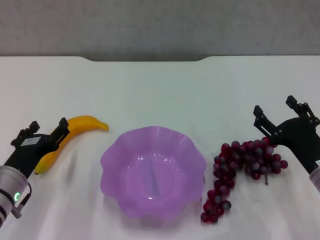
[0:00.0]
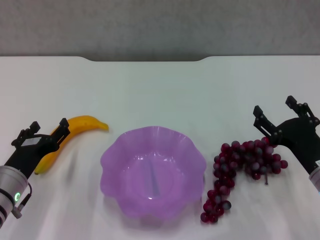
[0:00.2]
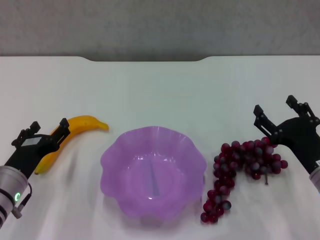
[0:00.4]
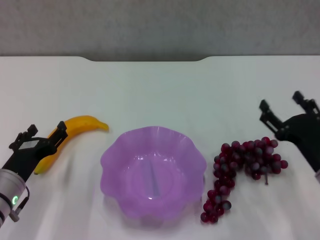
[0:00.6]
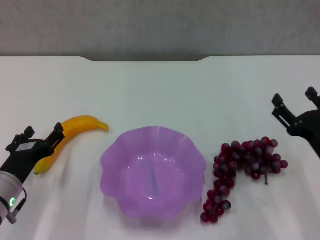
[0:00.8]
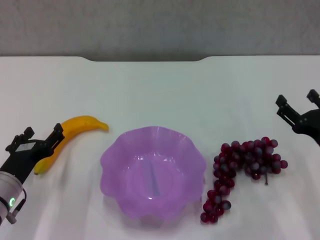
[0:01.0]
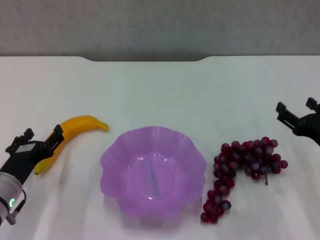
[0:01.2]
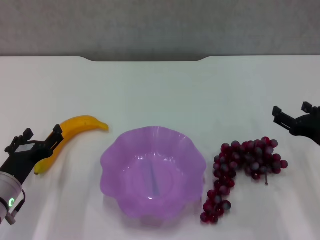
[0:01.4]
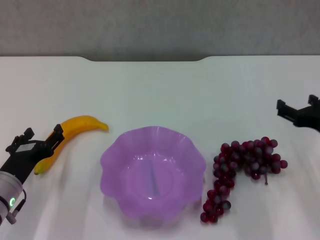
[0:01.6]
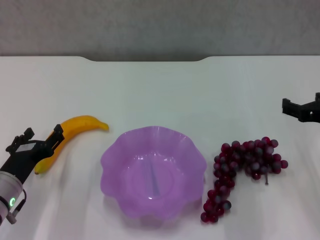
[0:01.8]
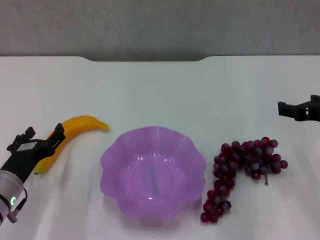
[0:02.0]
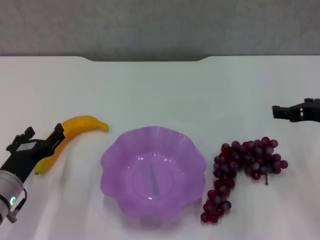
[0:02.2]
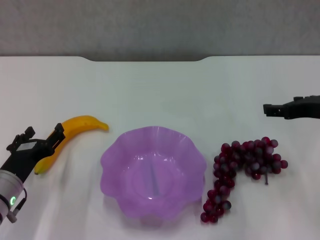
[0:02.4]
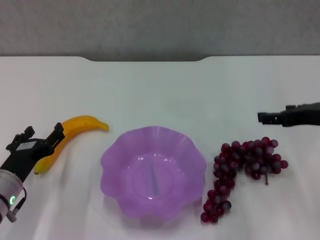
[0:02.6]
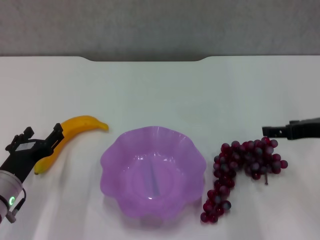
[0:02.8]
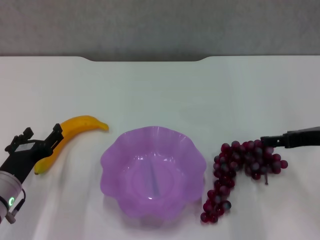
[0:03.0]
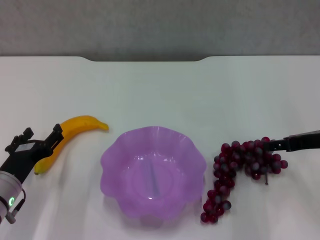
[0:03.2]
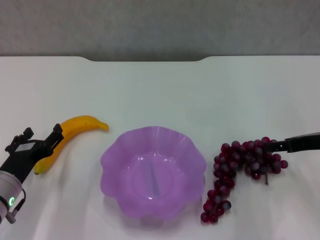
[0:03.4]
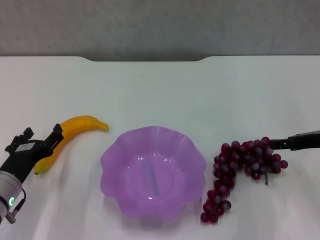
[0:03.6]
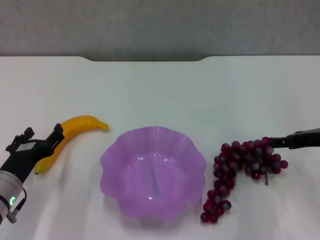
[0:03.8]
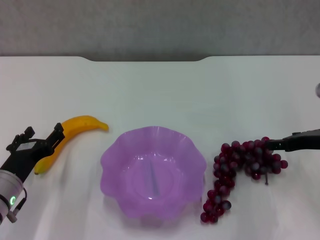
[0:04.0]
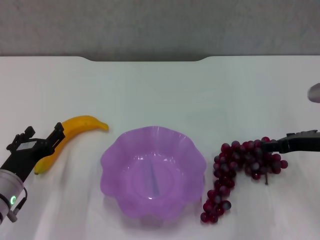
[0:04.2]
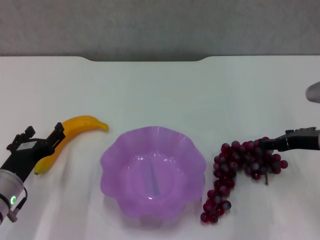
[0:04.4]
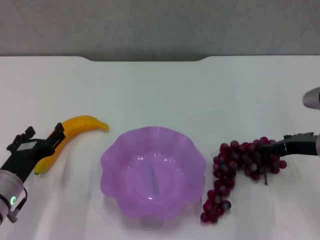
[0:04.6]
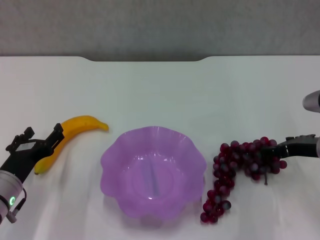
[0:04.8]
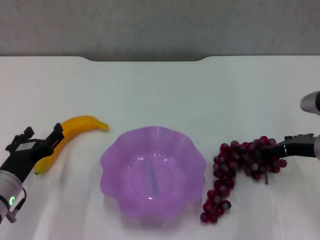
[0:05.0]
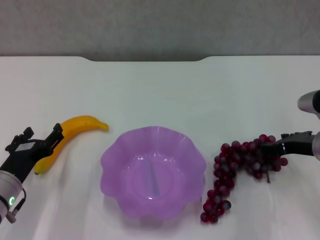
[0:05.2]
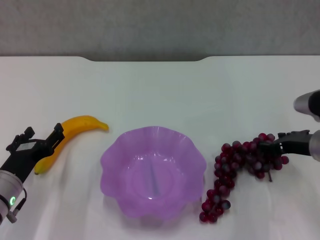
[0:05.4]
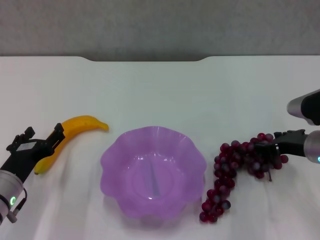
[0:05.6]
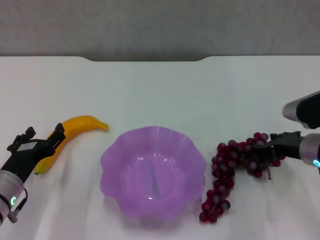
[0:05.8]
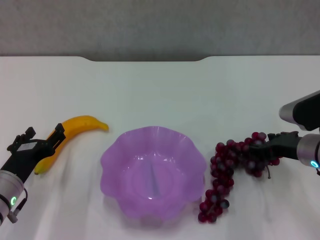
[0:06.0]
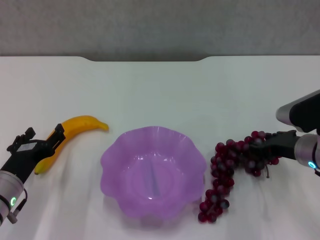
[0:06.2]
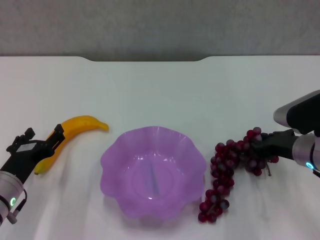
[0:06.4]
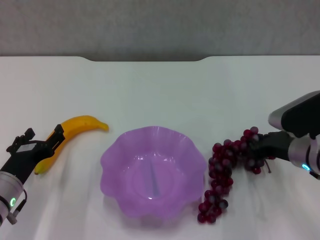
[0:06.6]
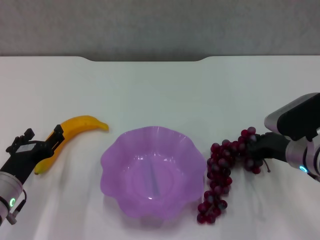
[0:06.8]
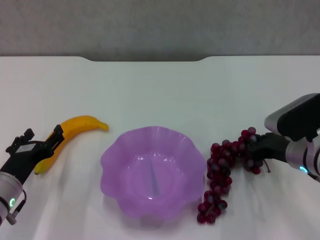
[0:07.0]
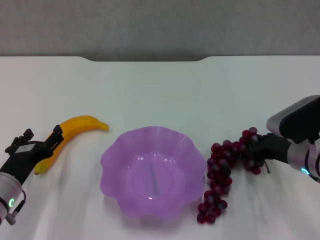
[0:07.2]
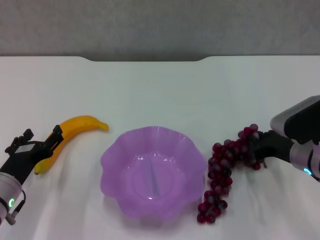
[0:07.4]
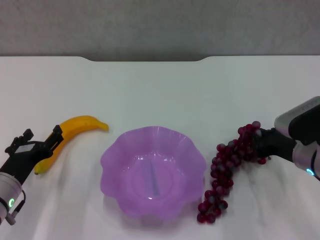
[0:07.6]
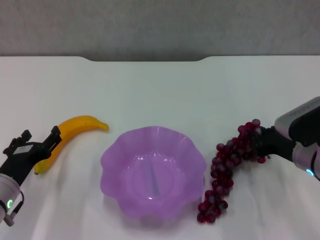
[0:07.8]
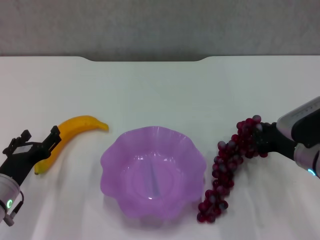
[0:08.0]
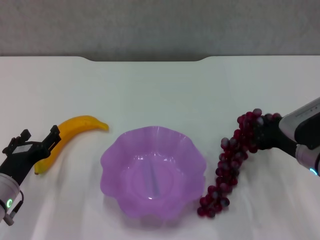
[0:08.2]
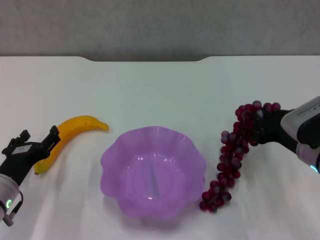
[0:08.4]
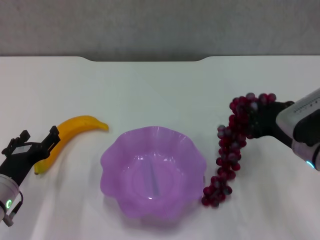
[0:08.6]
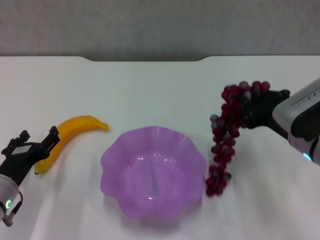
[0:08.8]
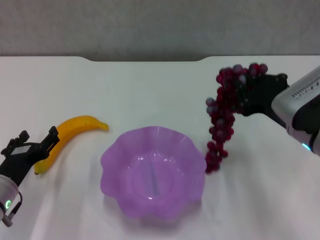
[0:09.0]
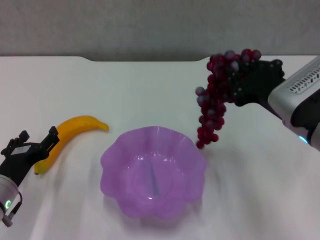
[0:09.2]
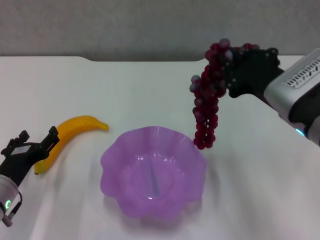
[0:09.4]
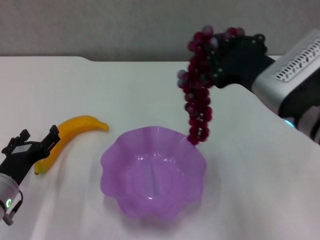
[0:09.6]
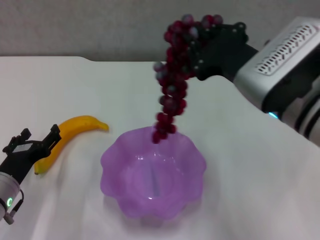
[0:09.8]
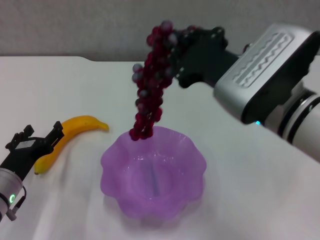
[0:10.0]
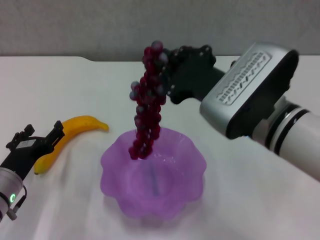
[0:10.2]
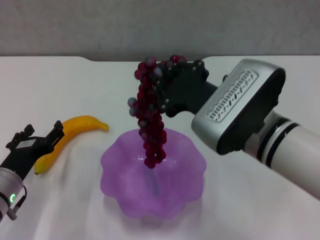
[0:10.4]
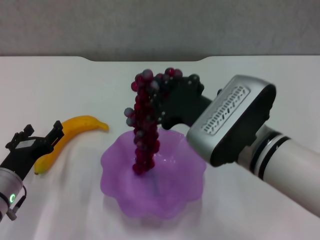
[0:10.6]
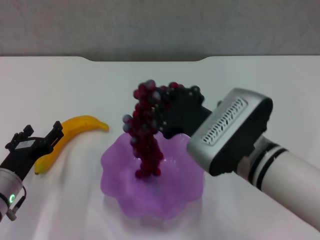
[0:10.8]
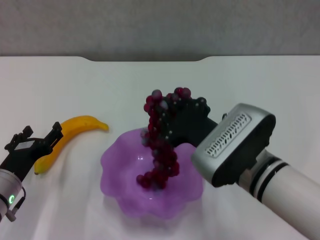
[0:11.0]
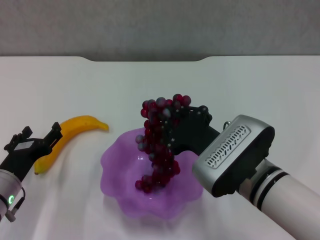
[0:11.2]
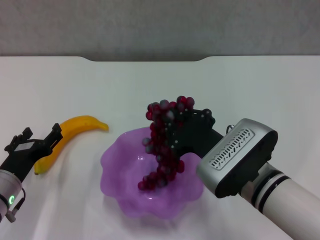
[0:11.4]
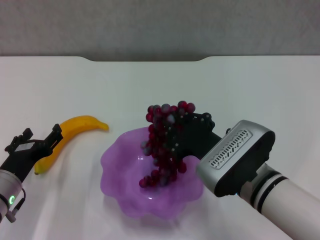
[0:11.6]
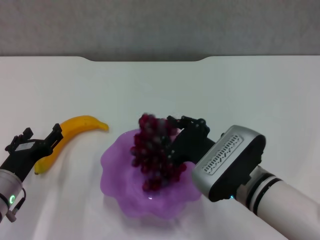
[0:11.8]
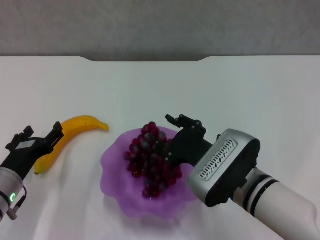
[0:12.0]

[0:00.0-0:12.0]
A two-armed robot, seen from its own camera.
Step, 0:00.0 to 0:07.0: Grasp the grape with right gripper.
0:00.0 to 0:01.6: The right gripper moves upward, approximately 5 cm.
0:03.0 to 0:04.4: The grippers move only a little.
0:04.4 to 0:06.0: There are only small adjustments of the grippers.
0:06.0 to 0:07.6: The right gripper closes up.
0:07.6 to 0:09.0: The right gripper is displaced upward by some 10 cm.
0:09.0 to 0:10.4: The right gripper moves to the left, approximately 10 cm.
0:10.4 to 0:12.0: The right gripper goes roughly 10 cm downward, and opens up.

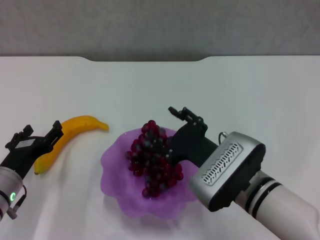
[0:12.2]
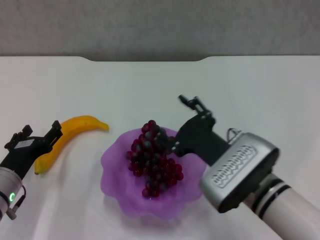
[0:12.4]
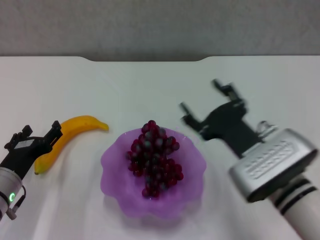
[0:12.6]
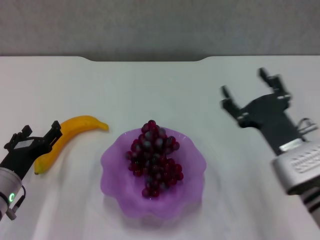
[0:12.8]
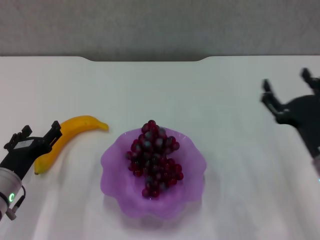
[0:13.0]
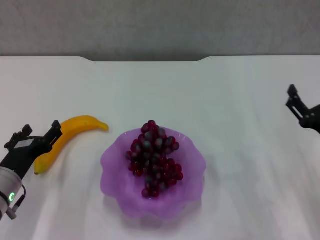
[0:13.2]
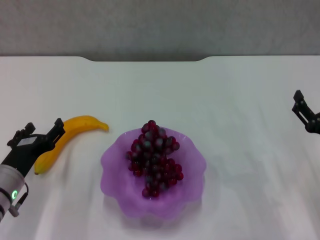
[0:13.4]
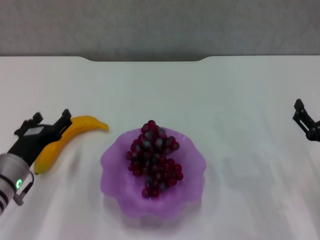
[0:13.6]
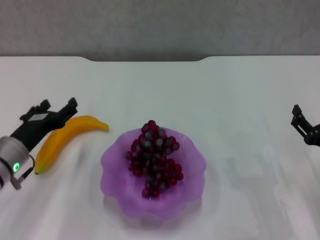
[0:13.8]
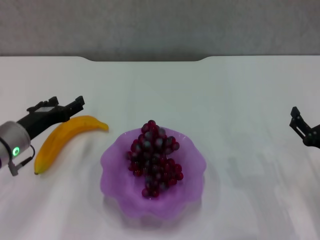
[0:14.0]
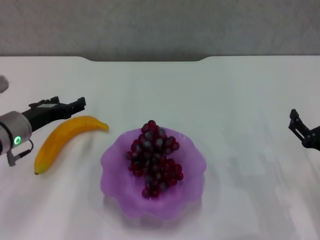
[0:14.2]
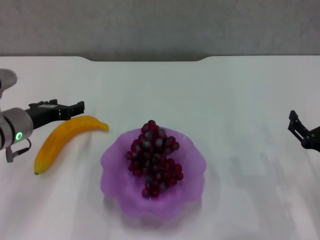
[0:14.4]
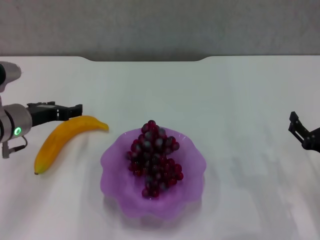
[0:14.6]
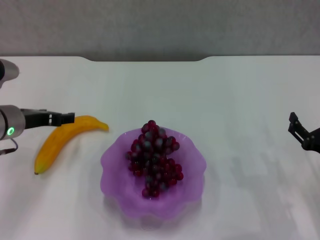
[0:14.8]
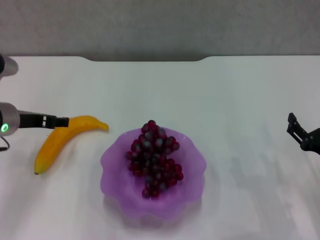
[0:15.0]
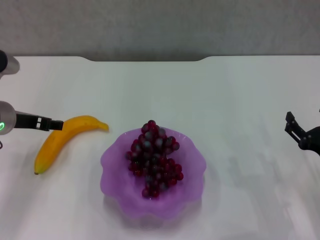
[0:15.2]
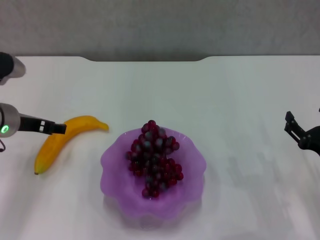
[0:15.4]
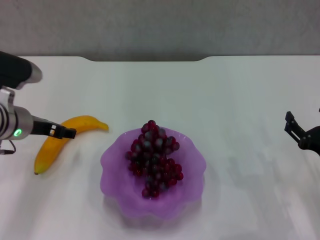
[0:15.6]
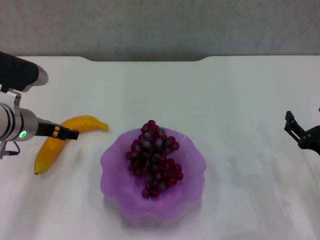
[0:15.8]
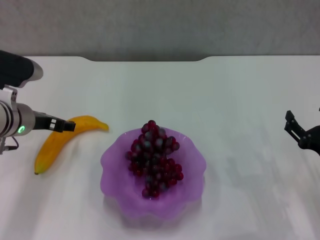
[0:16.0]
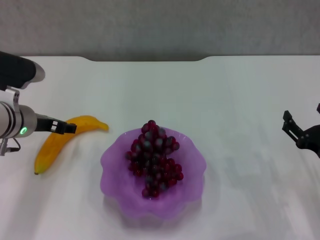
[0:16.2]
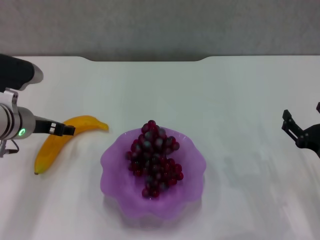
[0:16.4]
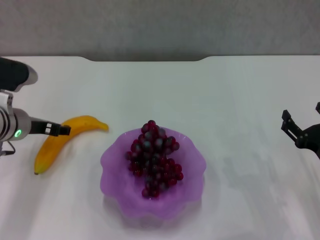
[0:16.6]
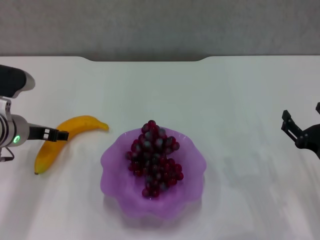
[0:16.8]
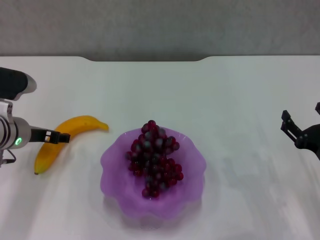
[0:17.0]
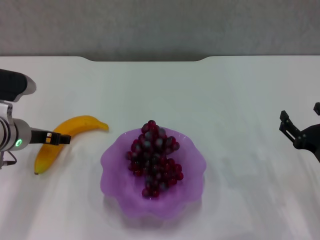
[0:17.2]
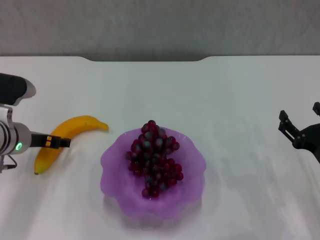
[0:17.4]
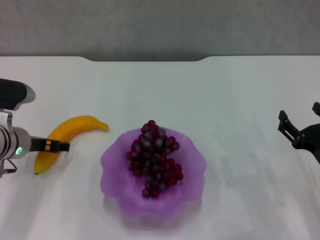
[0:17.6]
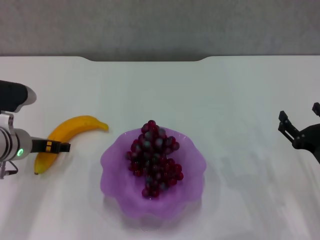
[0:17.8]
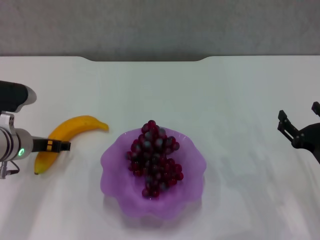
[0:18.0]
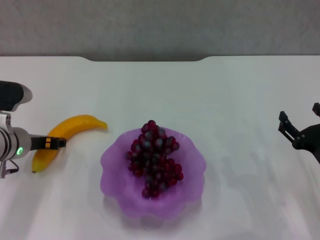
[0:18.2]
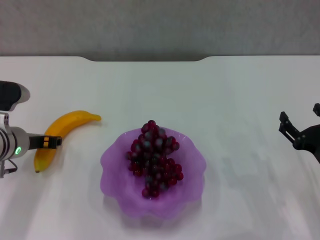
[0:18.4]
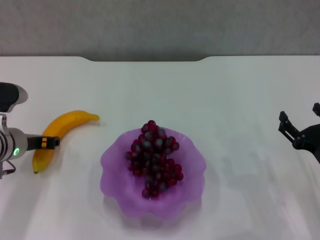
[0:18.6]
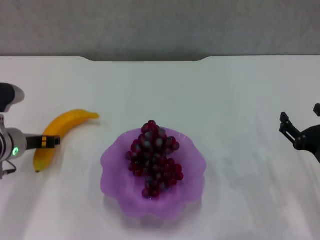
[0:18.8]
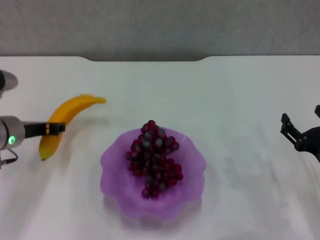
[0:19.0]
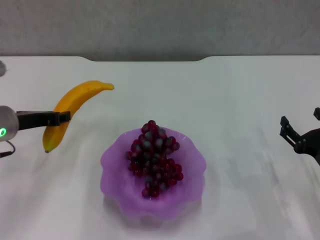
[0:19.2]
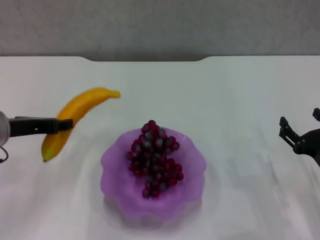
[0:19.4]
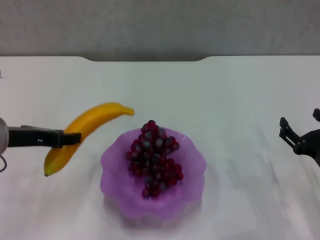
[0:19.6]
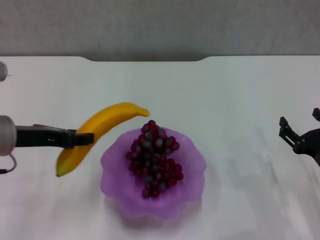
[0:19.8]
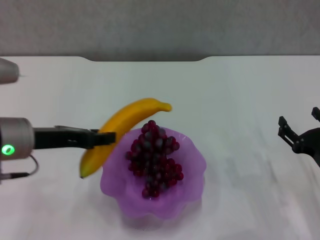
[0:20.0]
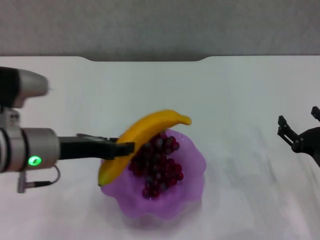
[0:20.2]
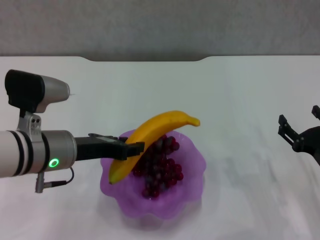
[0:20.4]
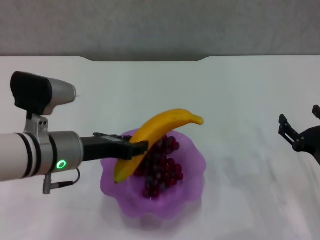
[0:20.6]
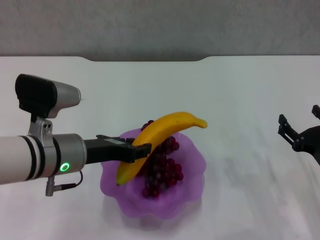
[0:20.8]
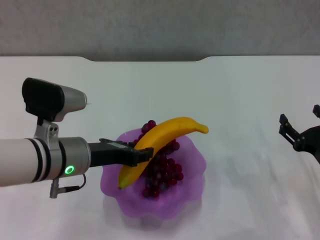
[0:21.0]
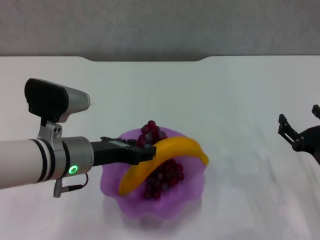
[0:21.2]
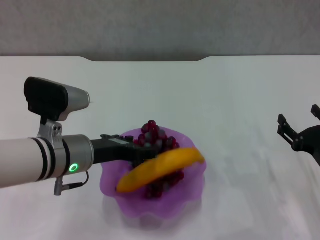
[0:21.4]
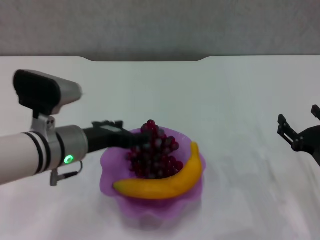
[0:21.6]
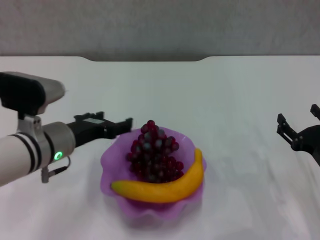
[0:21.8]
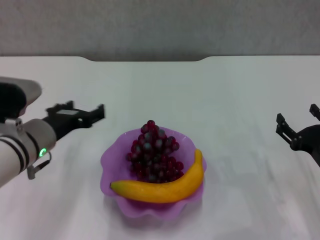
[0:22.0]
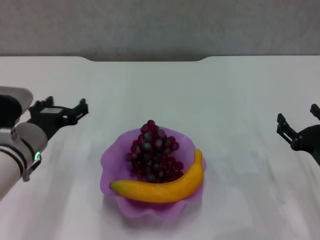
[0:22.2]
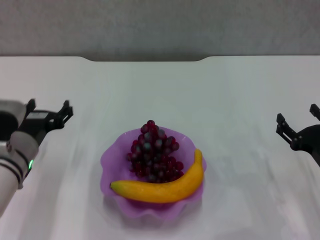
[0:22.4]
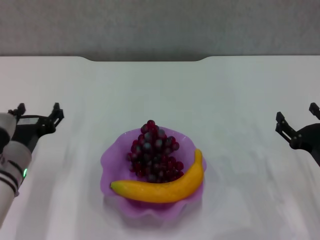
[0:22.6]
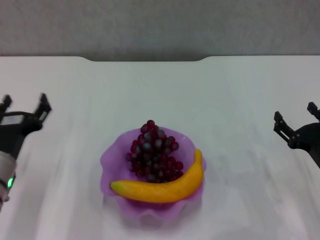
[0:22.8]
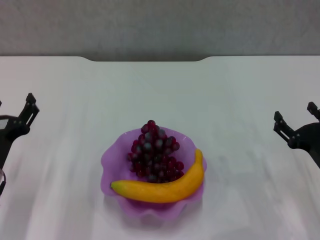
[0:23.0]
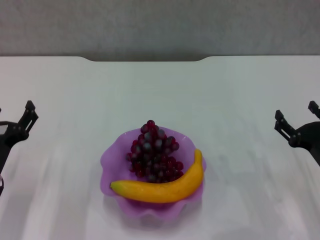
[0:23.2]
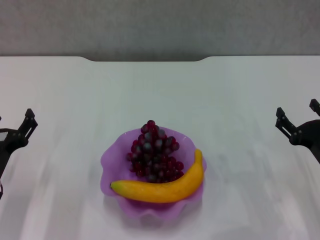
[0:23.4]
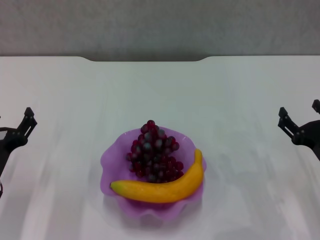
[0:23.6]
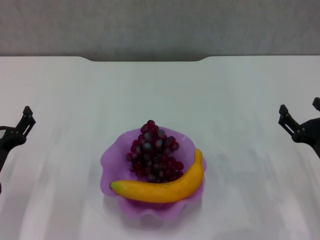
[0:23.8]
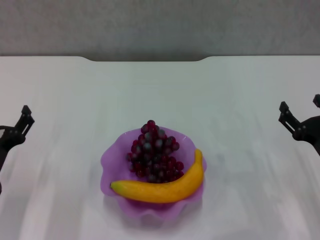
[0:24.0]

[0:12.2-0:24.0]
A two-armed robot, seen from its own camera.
Step, 0:12.4 to 0:18.4: Grasp the banana with left gripper.
Step, 0:18.8 to 0:21.6: Place the banana in the purple plate with left gripper.
0:12.2 to 0:13.6: The right gripper moves to the right, about 20 cm, and opens up.
0:13.6 to 0:15.2: The left gripper heads upward and forward, covering roughly 15 cm.
0:15.2 to 0:18.2: The grippers stay close to where they were, moving slightly.
0:18.2 to 0:19.6: The left gripper goes about 10 cm upward and backward, and closes its fingers.
0:19.6 to 0:21.0: The left gripper travels to the right by approximately 10 cm.
0:21.0 to 0:22.6: The left gripper is displaced to the left and downward by approximately 10 cm, and opens up.
0:22.6 to 0:24.0: The left gripper shifts approximately 5 cm to the left.
